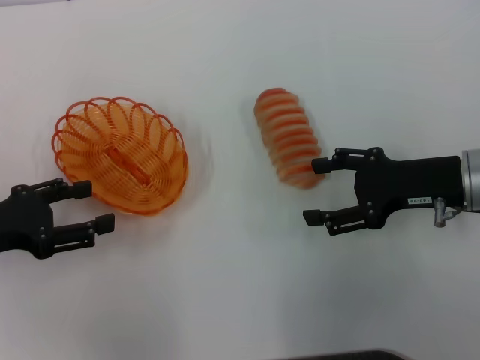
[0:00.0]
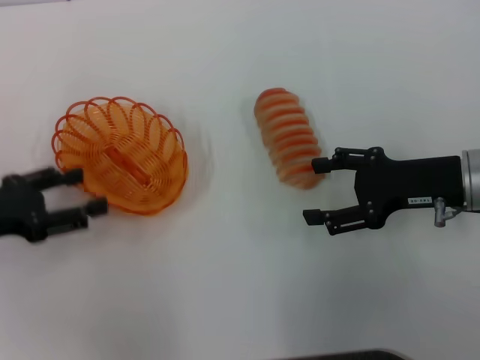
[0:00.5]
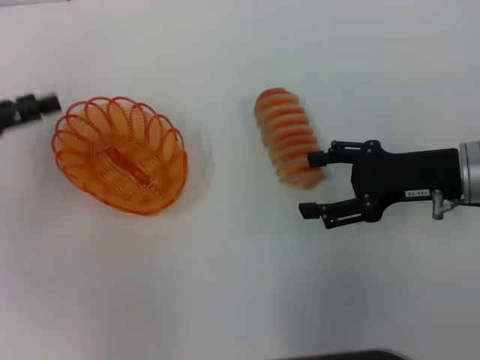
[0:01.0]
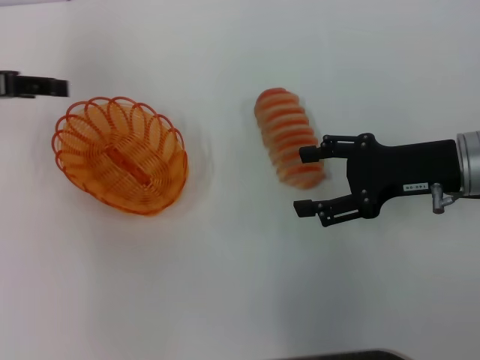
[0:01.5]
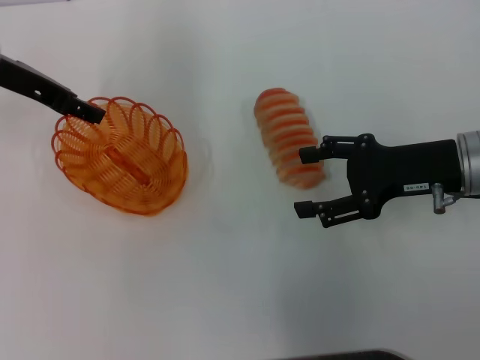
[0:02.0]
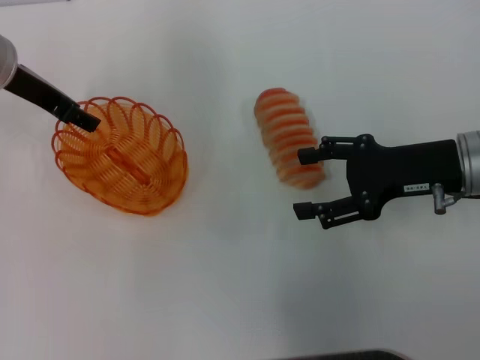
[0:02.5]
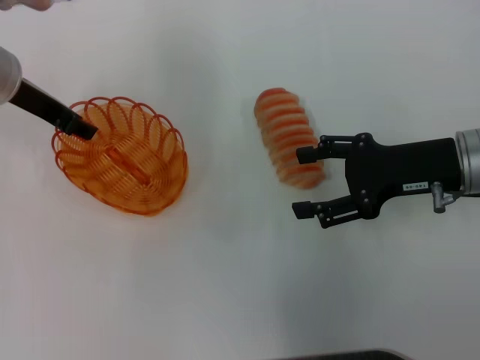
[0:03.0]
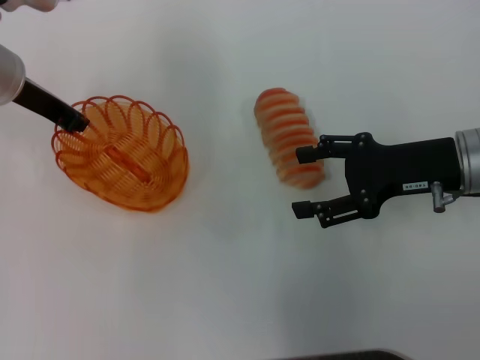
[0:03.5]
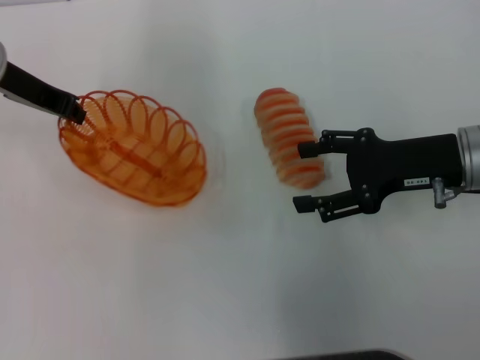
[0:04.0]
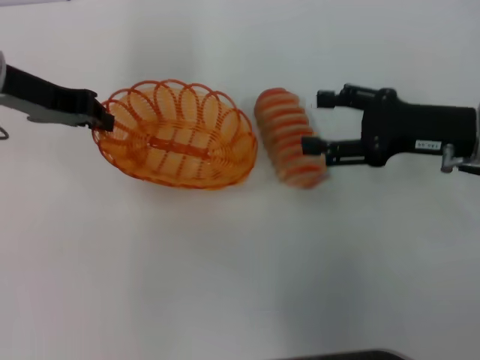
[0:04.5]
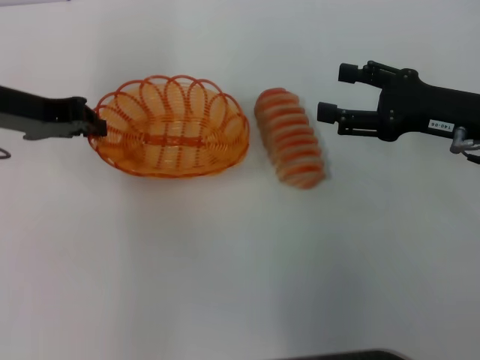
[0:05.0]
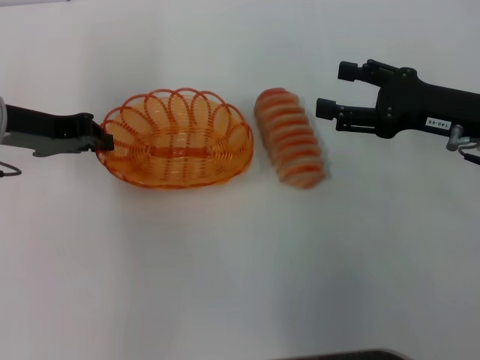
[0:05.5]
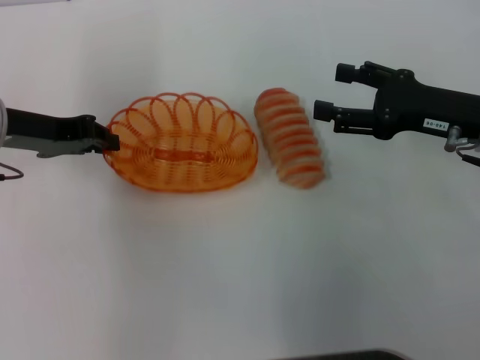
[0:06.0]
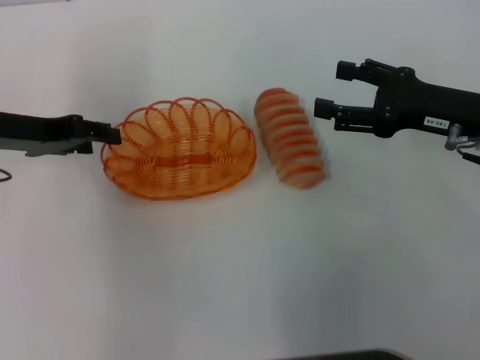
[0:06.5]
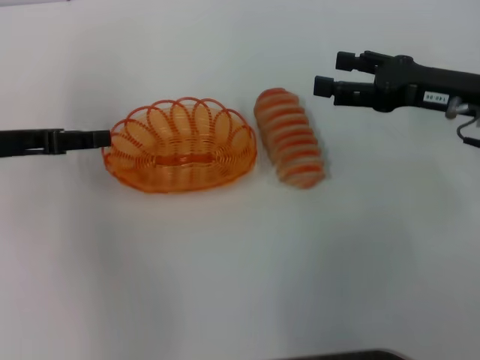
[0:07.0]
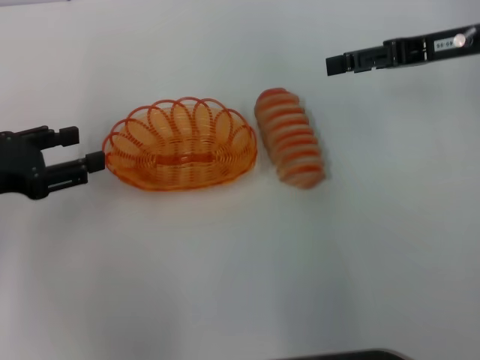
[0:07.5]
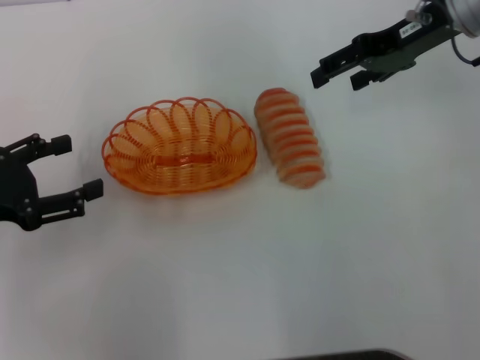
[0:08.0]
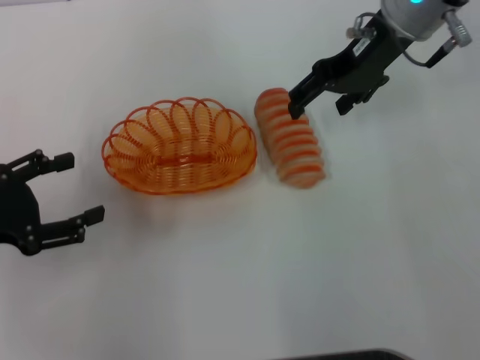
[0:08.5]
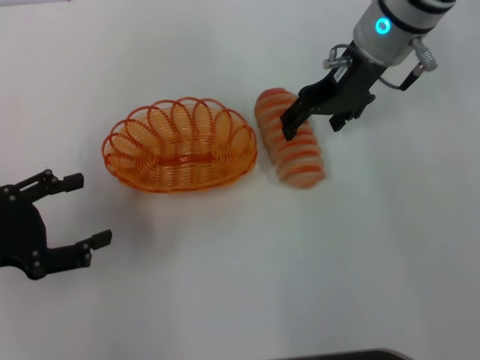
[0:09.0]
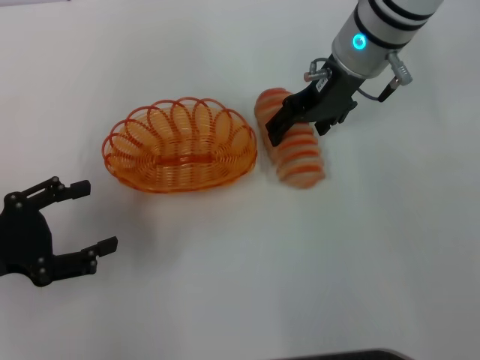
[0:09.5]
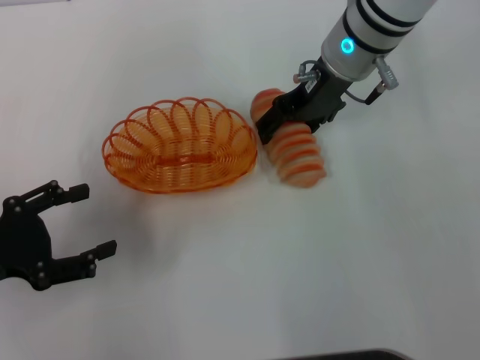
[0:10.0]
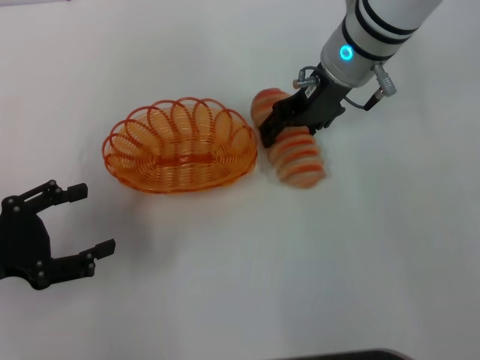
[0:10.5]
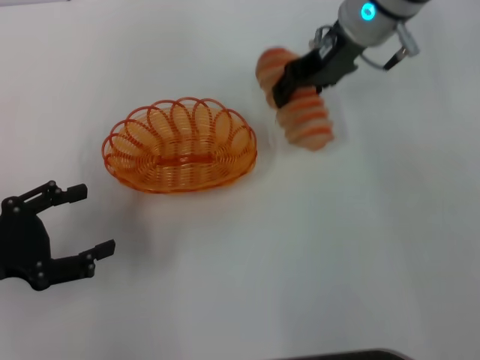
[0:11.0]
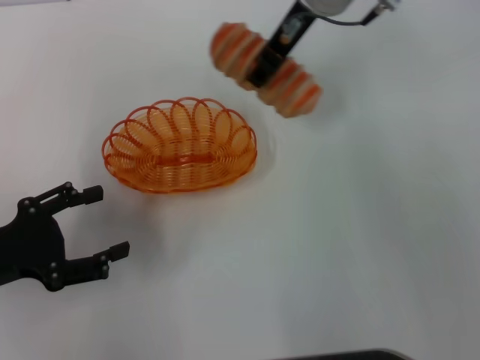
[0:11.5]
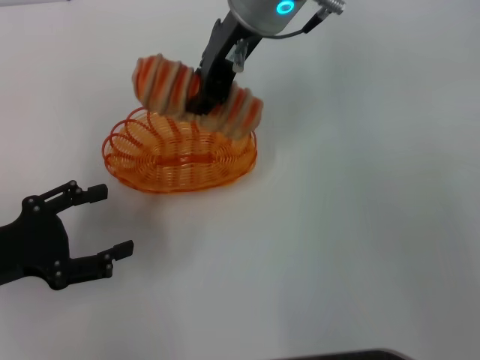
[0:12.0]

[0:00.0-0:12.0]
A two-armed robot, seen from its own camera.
Step, 0:00.0 to 0:04.0: Pick up the basket with the left gripper.
Step, 0:04.5 to 0:06.5: Place the basket in the center of view with the left gripper.
Step, 0:07.0 to 0:11.0: Pick up the long bread with the right gripper.
0:00.0 to 0:02.0: The left gripper heads forward, upward and to the right, covering roughly 20 cm.
0:02.0 to 0:04.0: The left gripper closes its fingers.
0:04.0 to 0:06.0: The left gripper shifts by roughly 5 cm.
0:06.0 to 0:08.0: The right gripper travels forward and upward by about 15 cm, while the left gripper shifts some 10 cm backward and to the left, and opens up.
0:08.0 to 0:10.0: The right gripper is displaced to the left by approximately 10 cm.
0:10.0 to 0:12.0: The right gripper is displaced to the left and upward by some 10 cm, and closes up.

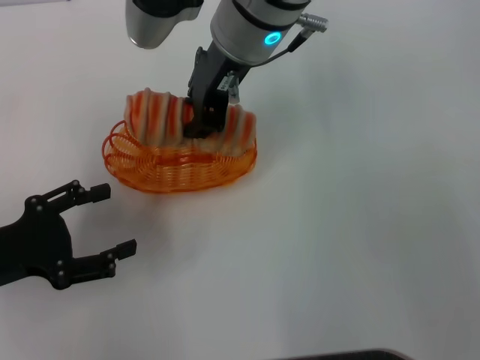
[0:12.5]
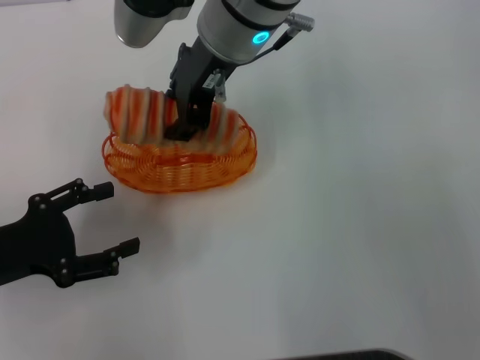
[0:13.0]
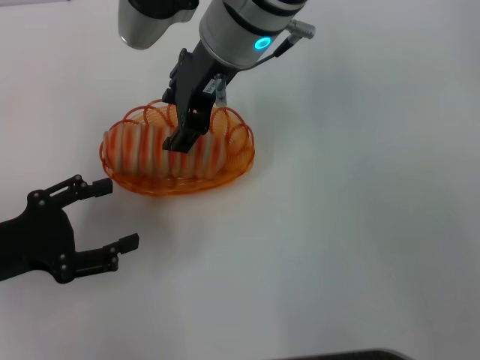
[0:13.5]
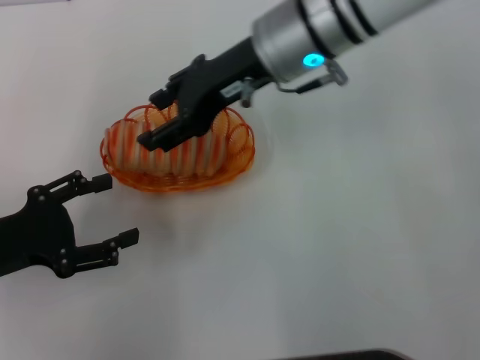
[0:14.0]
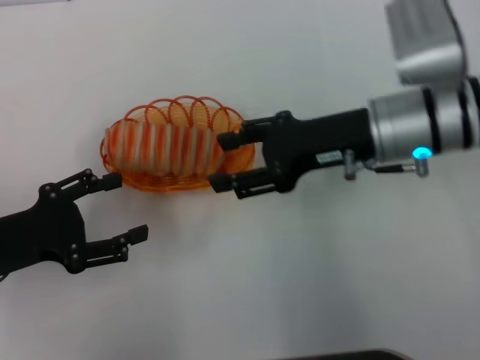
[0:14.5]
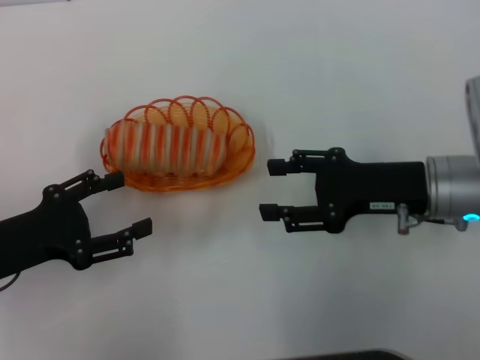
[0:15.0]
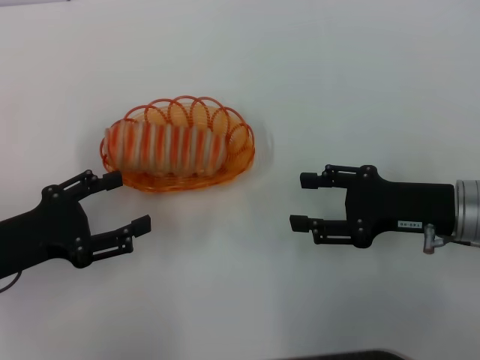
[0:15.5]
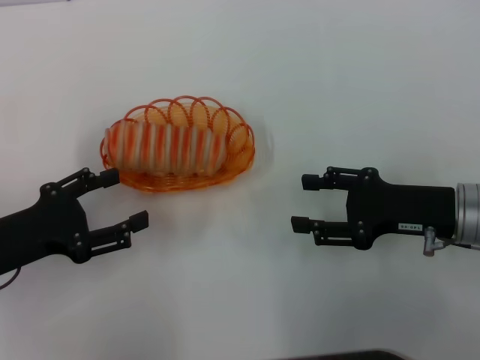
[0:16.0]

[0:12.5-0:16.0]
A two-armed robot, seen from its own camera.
Step, 0:12.5 to 0:14.0: Place the long bread into the basket with the right gripper.
0:12.5 to 0:14.5: The right gripper moves to the right, downward and backward, roughly 20 cm, and opens up.
0:14.5 to 0:16.0: The right gripper goes some 10 cm to the right, backward and downward.

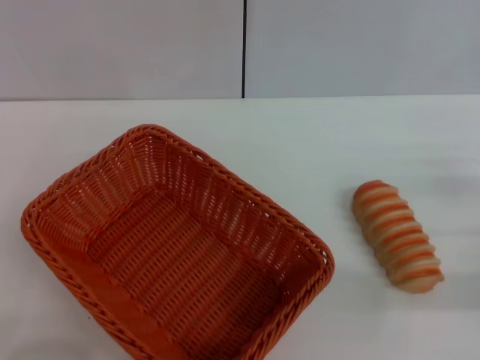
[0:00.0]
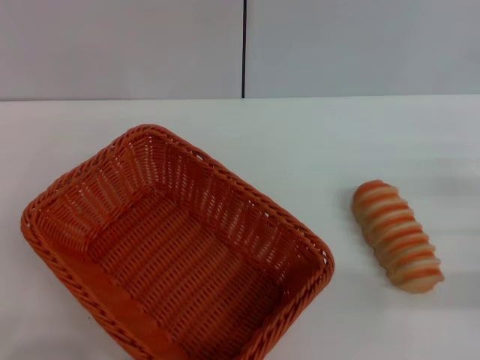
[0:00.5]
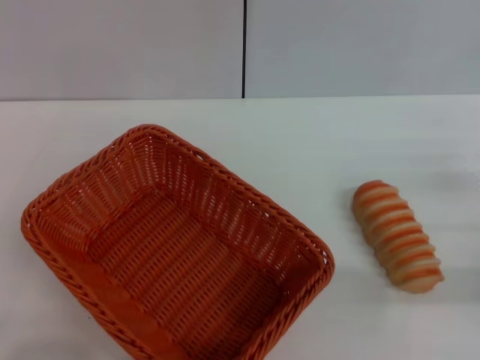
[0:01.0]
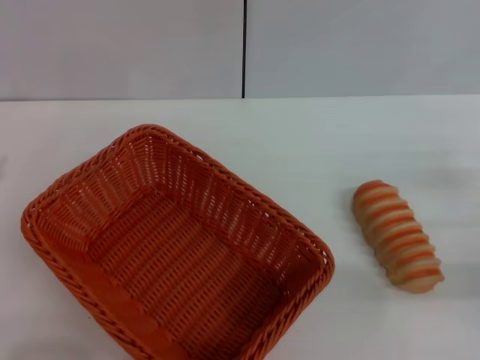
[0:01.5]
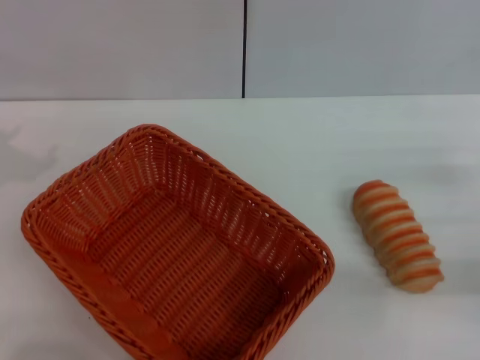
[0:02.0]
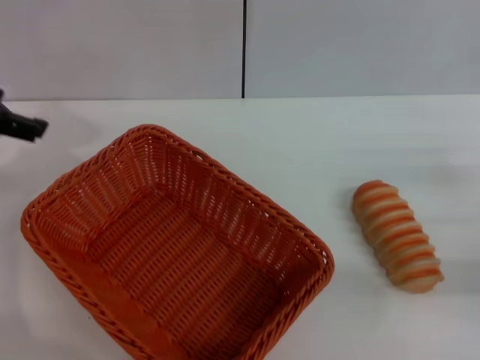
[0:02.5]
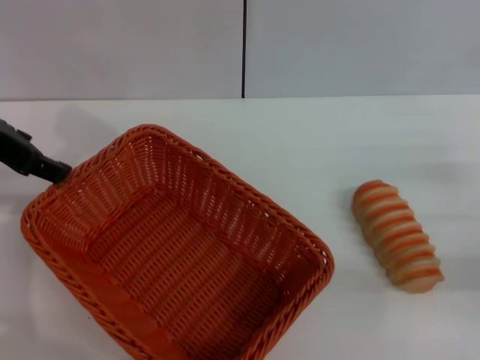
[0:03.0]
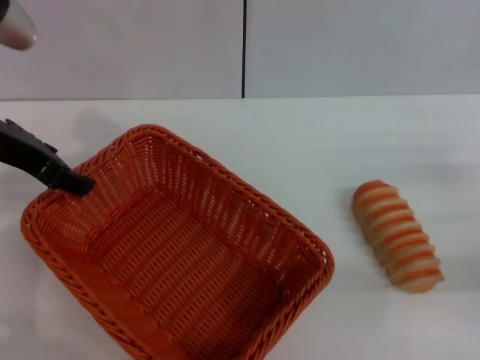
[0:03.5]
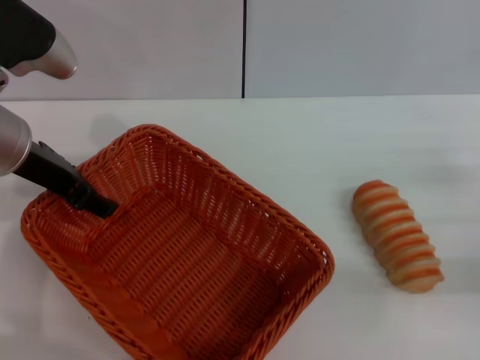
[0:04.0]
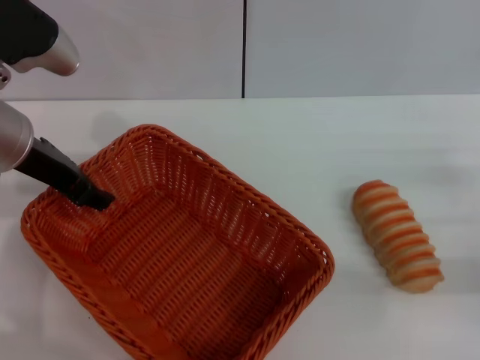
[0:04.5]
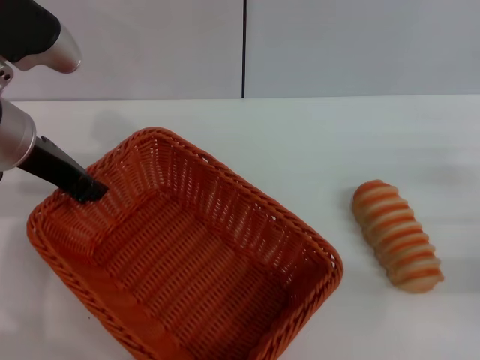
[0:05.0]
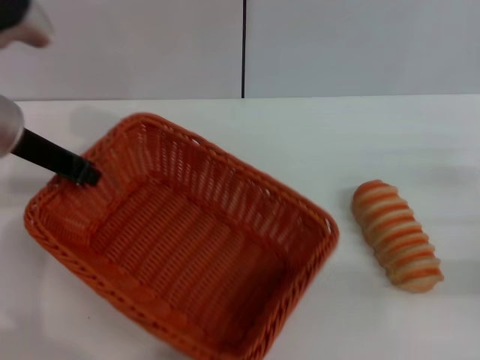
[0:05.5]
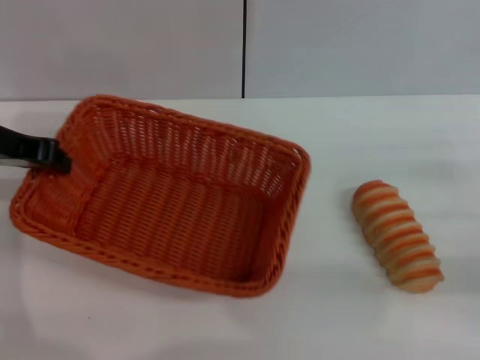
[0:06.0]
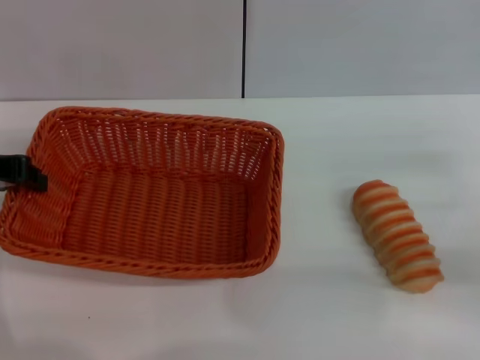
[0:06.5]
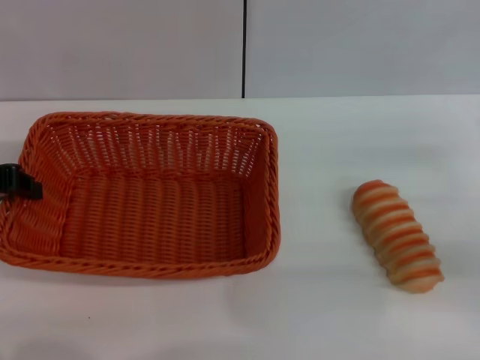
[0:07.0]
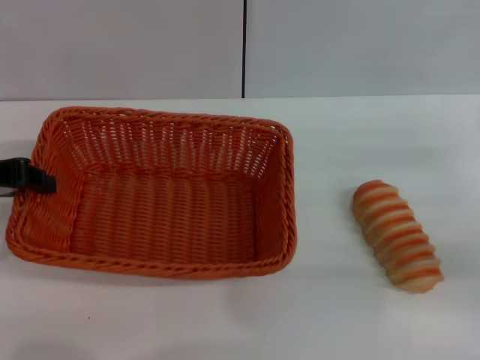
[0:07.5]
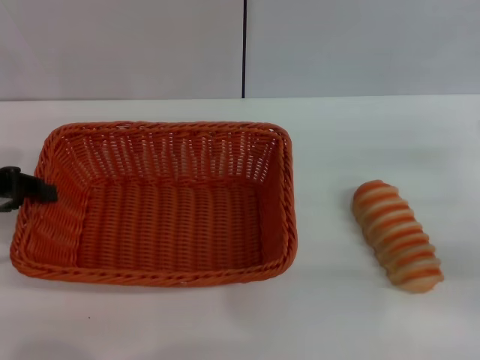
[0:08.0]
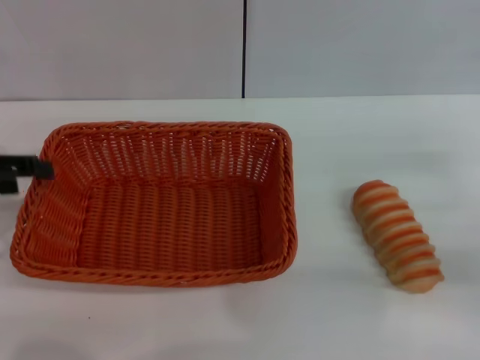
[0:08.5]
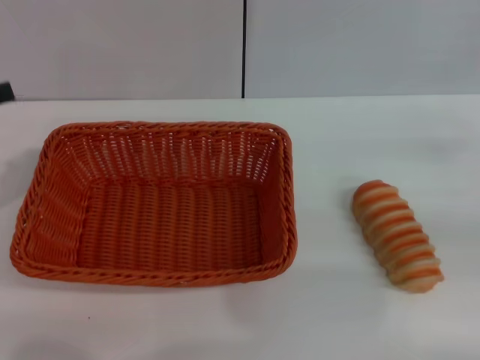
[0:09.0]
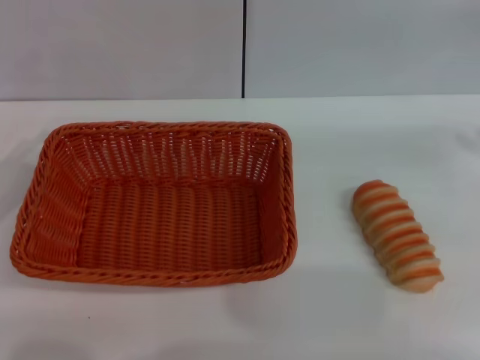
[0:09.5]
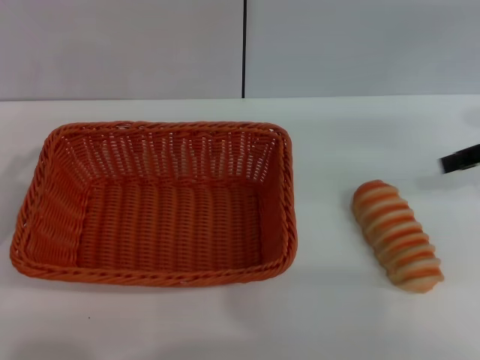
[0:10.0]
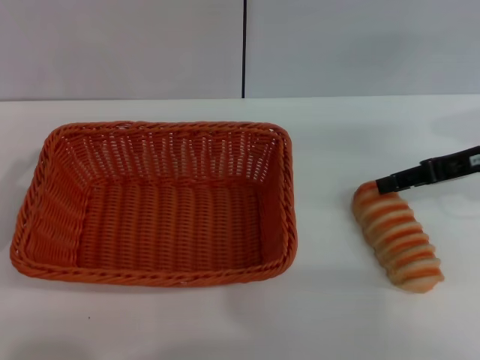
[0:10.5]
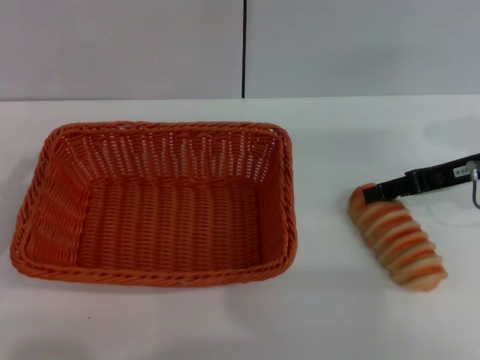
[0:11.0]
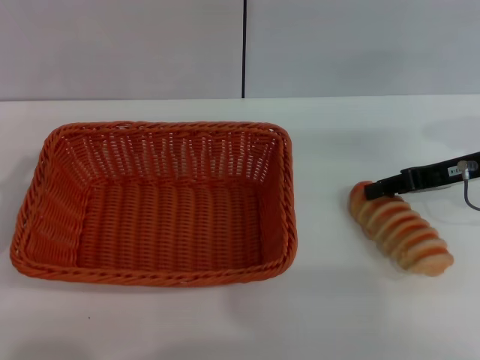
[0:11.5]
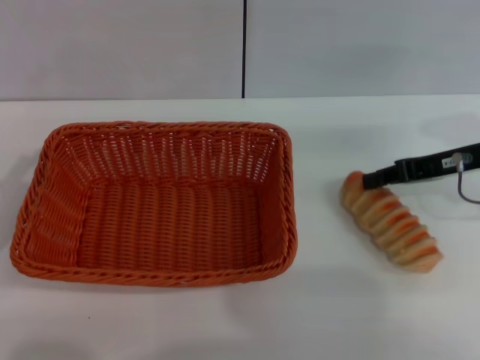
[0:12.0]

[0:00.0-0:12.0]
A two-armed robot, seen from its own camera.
Step, 0:00.0 to 0:05.5: Pick up the light basket with the left gripper.
Step, 0:06.0 to 0:08.5: Place the light basket in the center of view with the left gripper.
0:02.0 to 0:04.0: The left gripper goes approximately 15 cm to the right, downward and forward.
0:04.0 to 0:06.0: The left gripper heads to the left, covering about 5 cm, and closes up.
0:06.0 to 0:08.0: The left gripper moves backward and to the left, approximately 5 cm.
0:08.0 to 0:10.0: The left gripper heads backward and downward, covering roughly 10 cm, and opens up. The right gripper is displaced upward and forward by approximately 15 cm.
0:10.0 to 0:12.0: The right gripper travels downward and to the left by approximately 10 cm.
